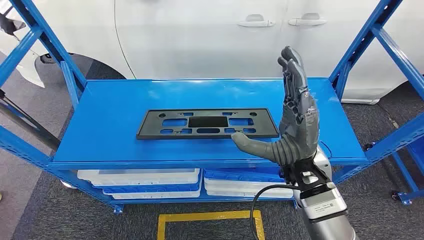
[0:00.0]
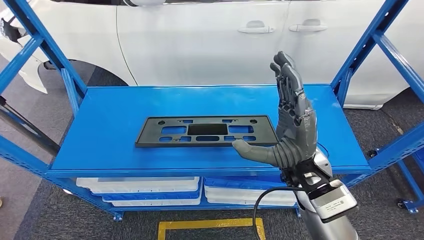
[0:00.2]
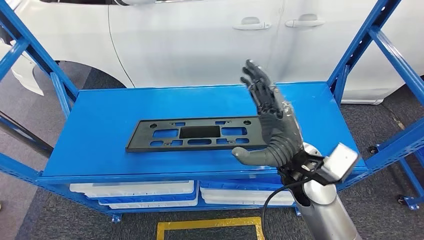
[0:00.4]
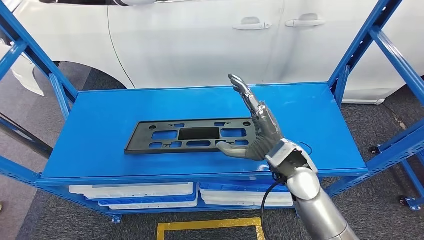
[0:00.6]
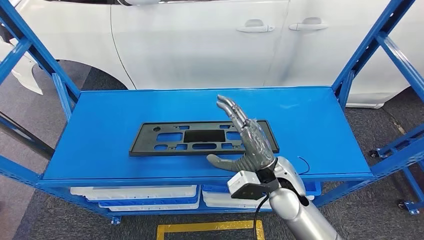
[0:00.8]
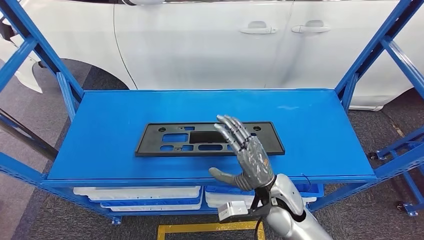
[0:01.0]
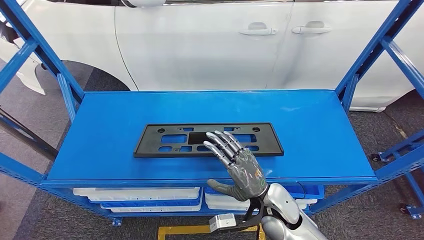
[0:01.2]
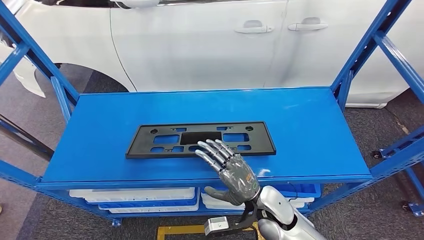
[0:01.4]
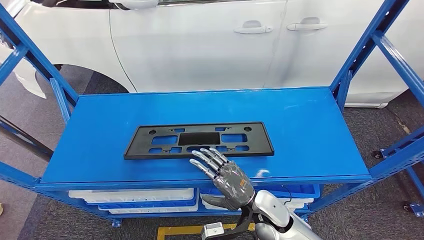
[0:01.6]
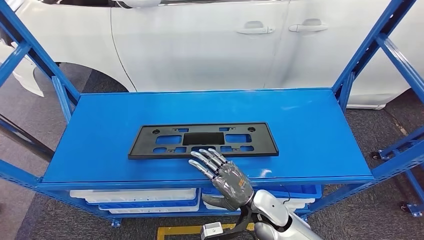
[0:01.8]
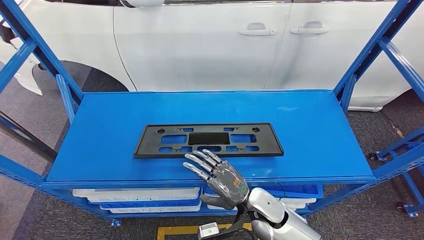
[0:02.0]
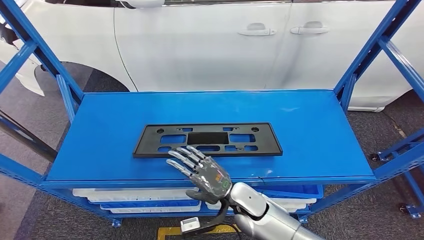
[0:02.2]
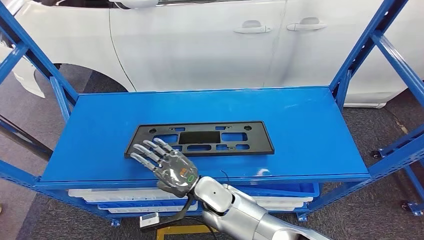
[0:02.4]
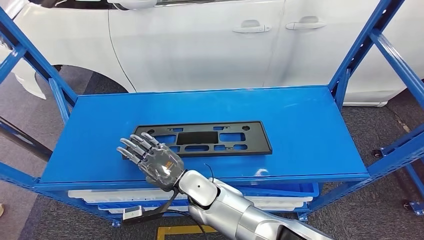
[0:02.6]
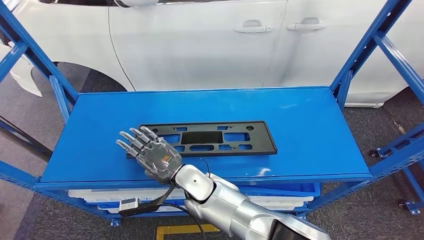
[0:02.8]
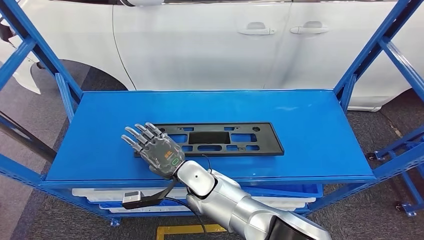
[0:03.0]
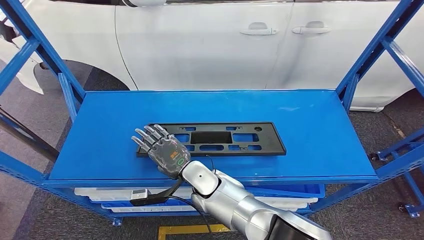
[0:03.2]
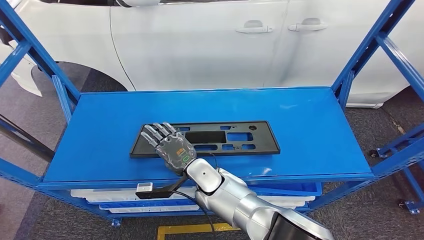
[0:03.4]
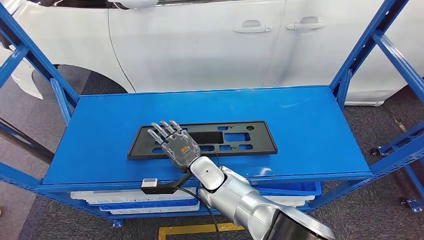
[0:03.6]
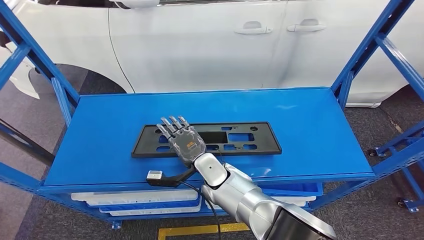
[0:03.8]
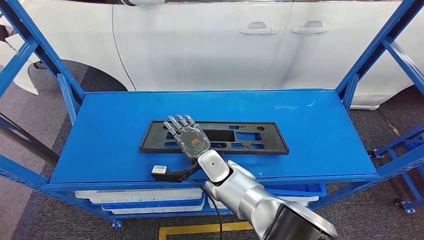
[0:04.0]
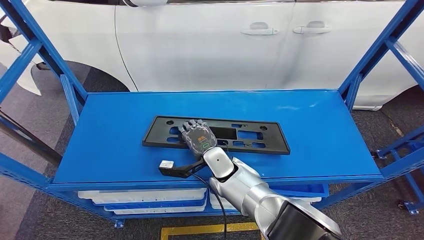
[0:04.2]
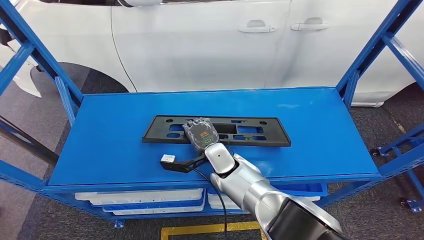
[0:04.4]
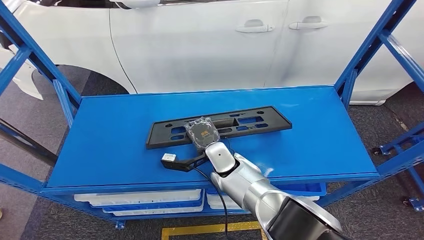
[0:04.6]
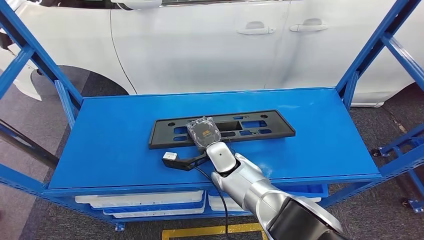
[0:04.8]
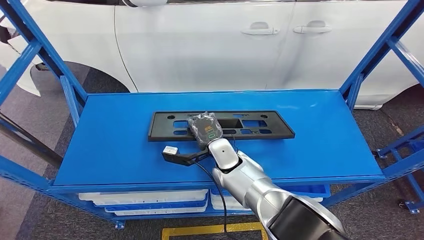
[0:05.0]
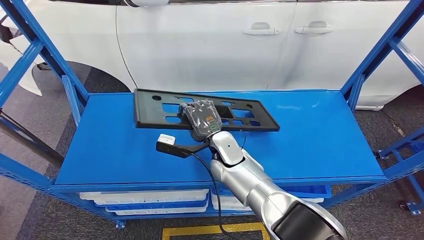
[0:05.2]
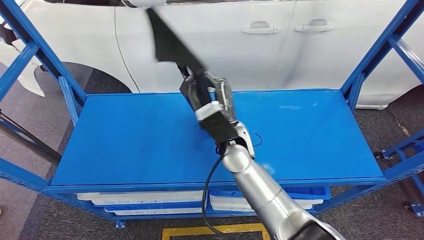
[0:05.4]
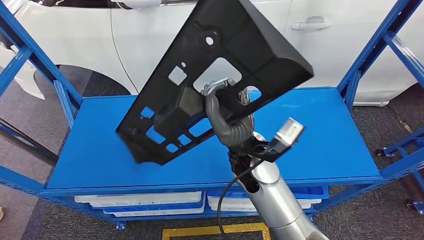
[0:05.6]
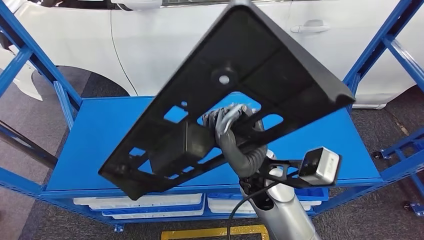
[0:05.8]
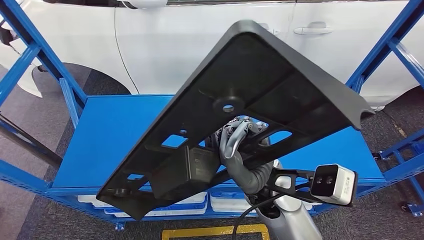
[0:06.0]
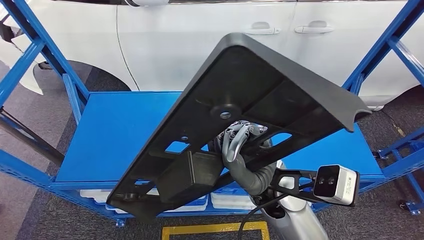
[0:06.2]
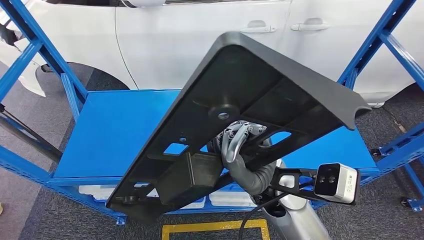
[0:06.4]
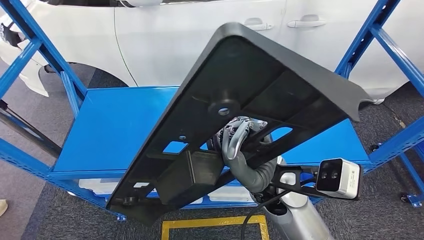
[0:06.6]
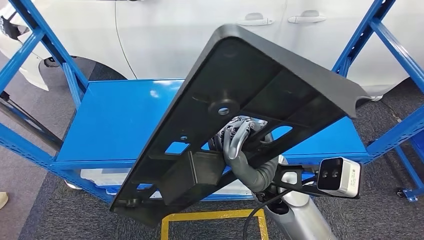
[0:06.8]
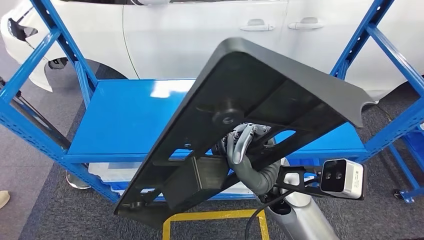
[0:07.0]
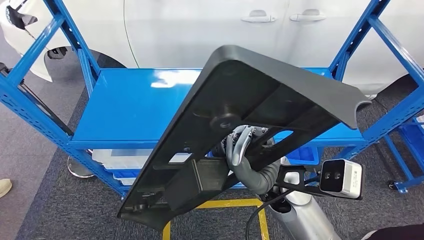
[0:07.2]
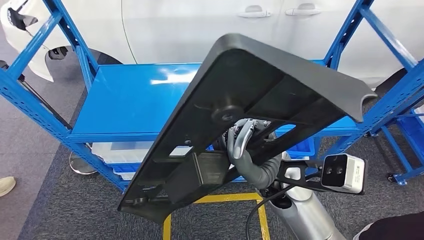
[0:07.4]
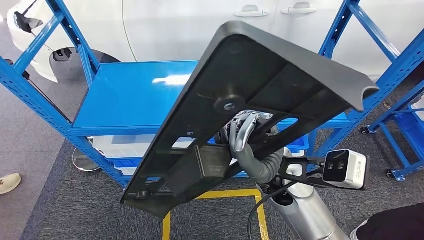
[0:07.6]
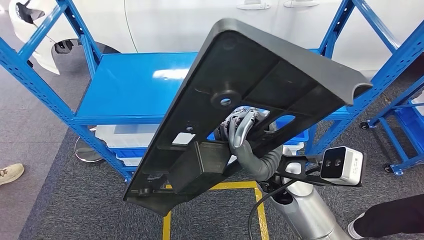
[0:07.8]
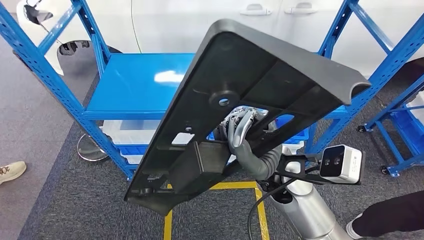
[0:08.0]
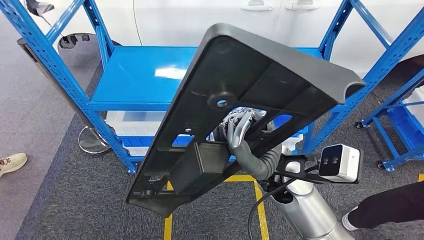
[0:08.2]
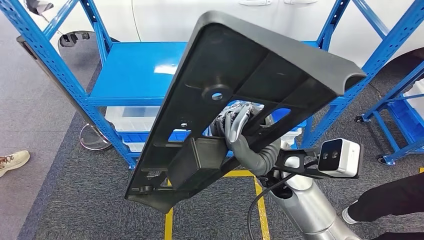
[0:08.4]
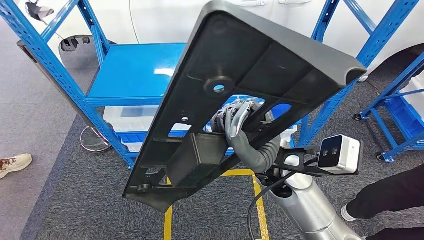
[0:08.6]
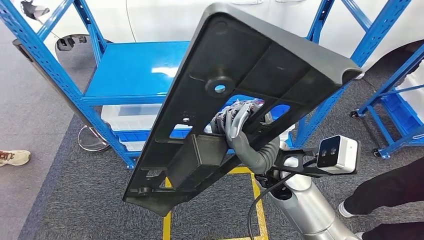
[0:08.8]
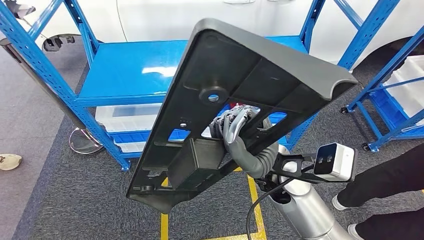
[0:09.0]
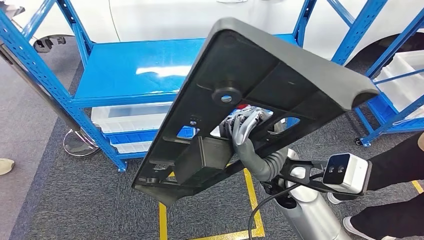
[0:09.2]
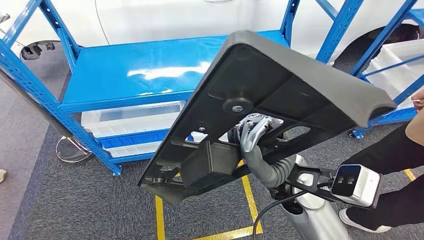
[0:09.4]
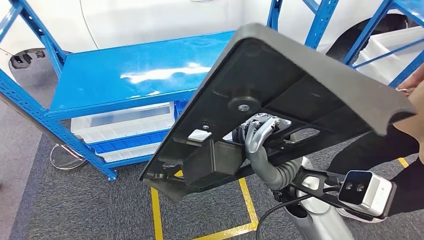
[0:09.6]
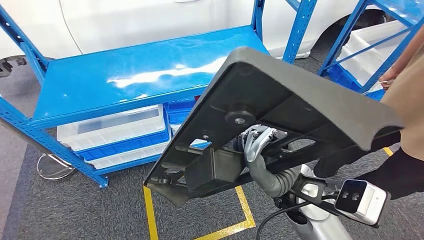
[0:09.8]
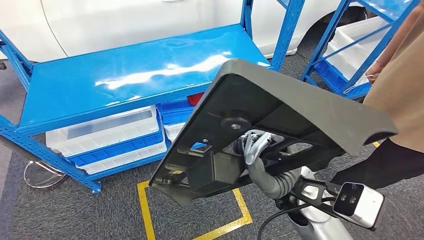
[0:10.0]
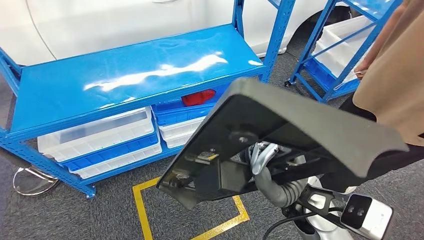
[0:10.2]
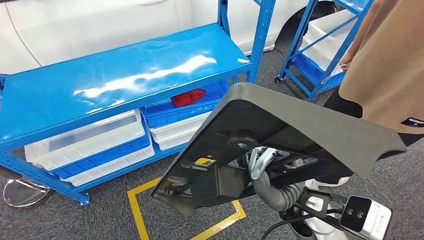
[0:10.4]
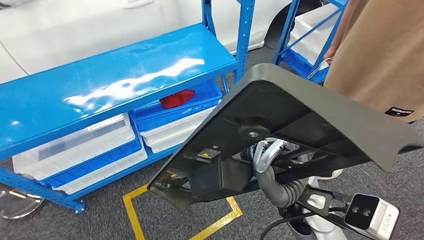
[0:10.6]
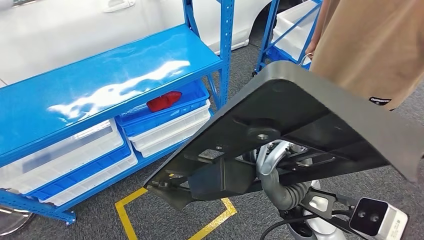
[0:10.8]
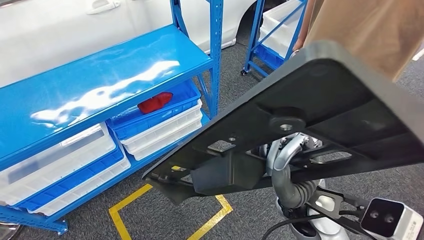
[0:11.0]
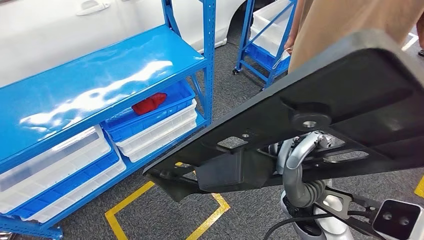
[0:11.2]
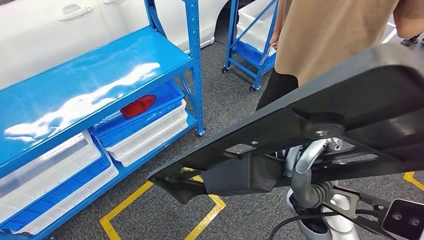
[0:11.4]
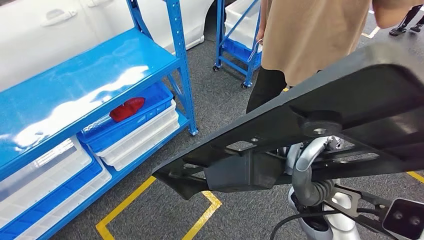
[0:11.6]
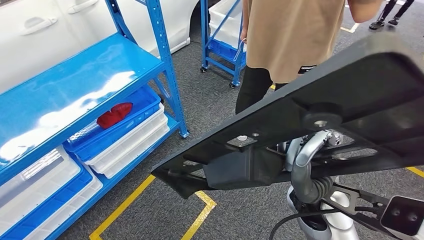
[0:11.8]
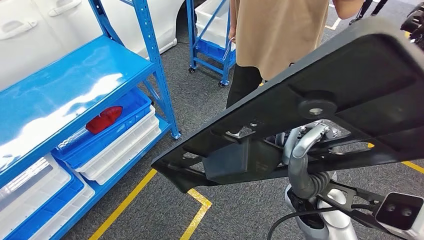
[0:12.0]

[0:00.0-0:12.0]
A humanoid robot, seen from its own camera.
Step, 0:00.0 to 0:05.4: Pick up the small component from the shelf.

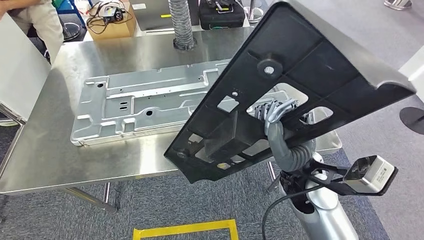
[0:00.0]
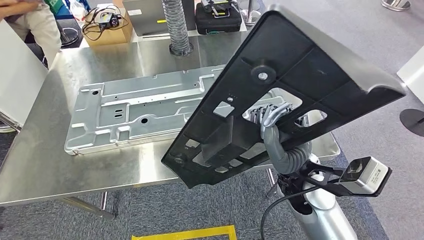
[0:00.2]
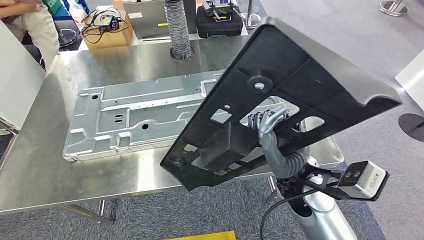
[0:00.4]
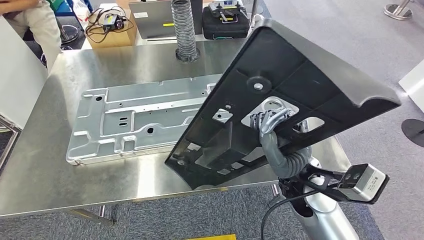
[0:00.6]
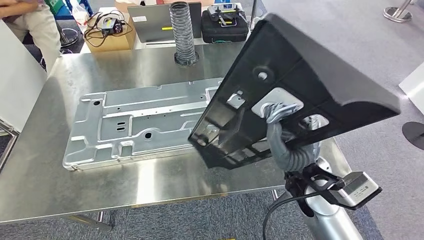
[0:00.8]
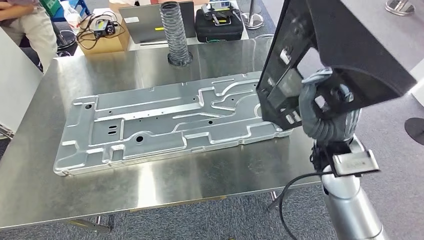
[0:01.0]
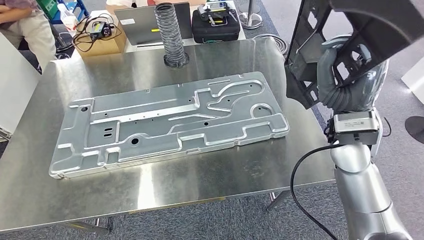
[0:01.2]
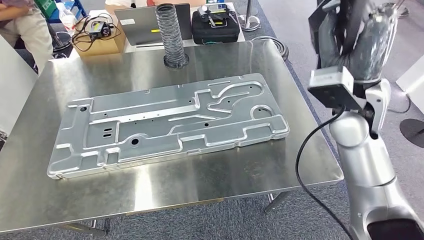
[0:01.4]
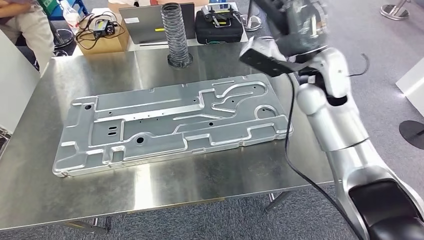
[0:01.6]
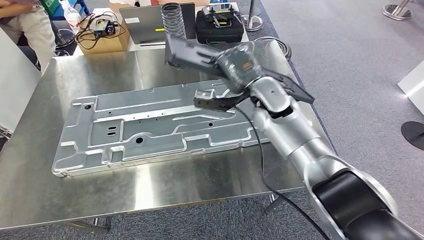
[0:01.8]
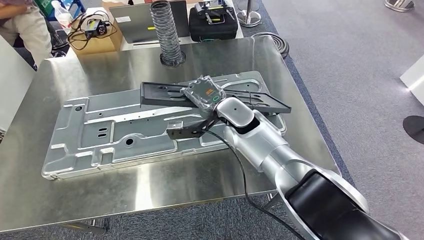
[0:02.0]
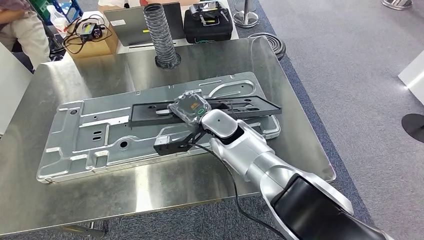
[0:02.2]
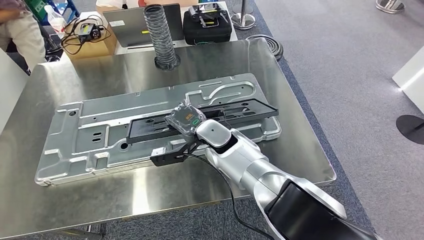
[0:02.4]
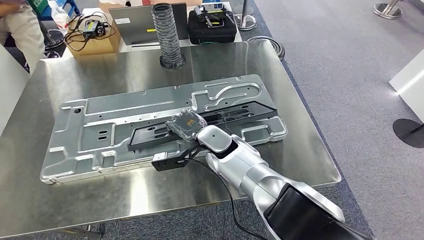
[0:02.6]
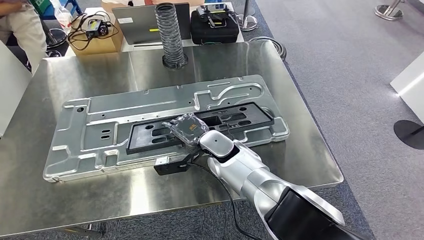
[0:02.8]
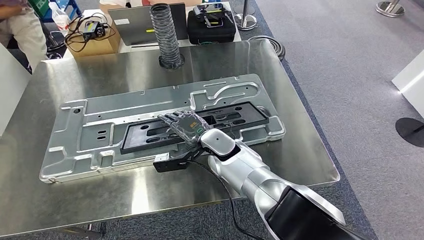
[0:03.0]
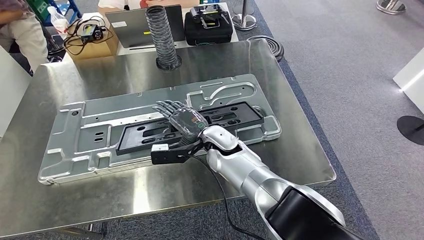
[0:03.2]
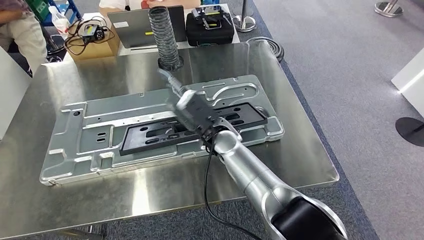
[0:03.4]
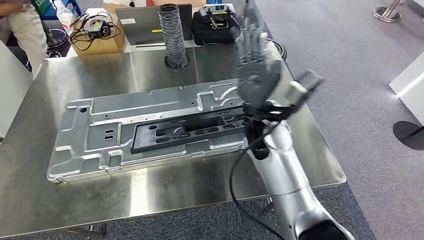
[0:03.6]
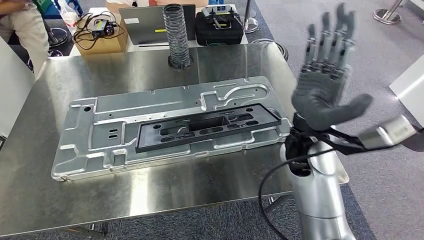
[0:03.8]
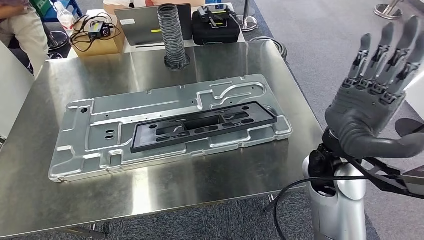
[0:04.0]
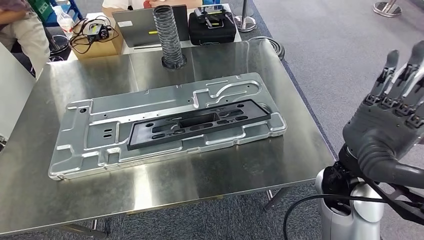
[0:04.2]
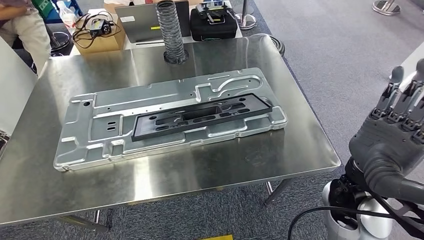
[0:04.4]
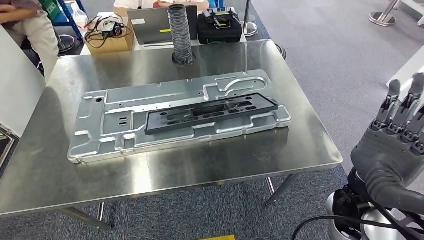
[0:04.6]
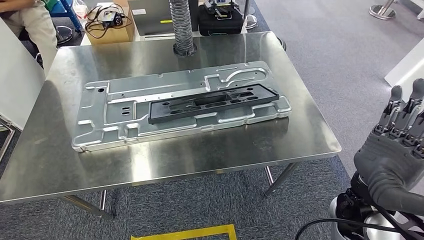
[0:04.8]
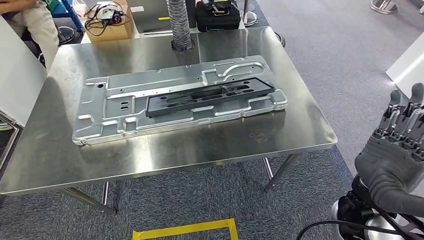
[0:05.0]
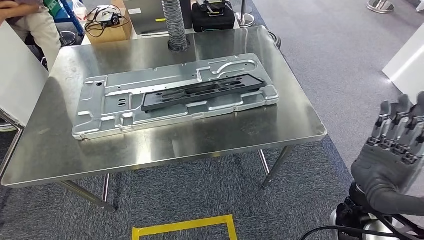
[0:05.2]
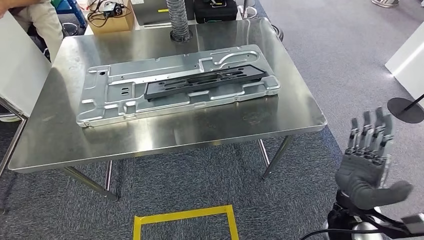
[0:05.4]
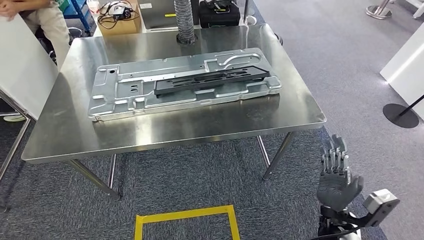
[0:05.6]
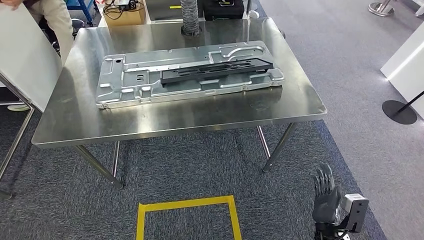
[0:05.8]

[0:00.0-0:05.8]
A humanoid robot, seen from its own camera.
Step, 0:00.6 to 0:04.8: Insert the small component into the corresponding slot on the workbench.
